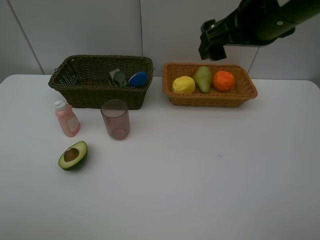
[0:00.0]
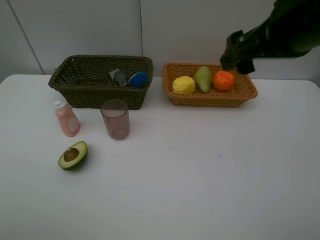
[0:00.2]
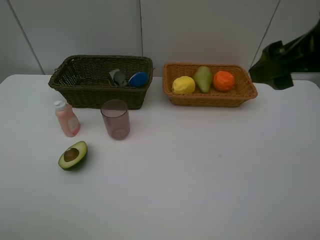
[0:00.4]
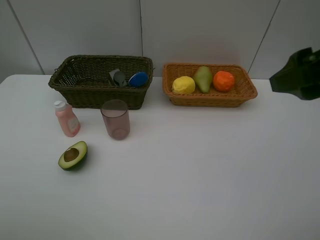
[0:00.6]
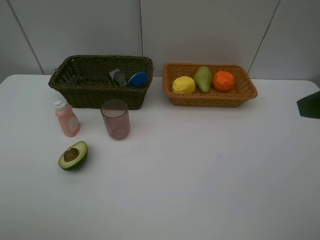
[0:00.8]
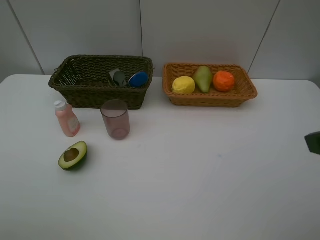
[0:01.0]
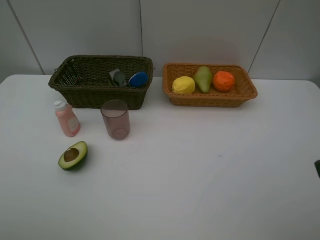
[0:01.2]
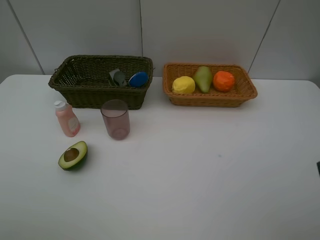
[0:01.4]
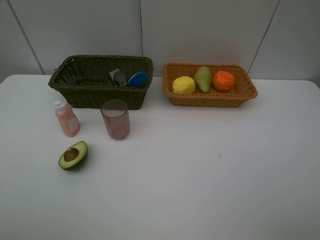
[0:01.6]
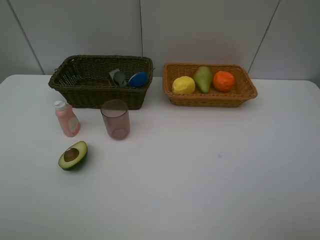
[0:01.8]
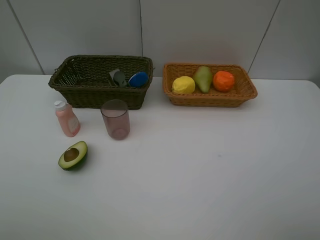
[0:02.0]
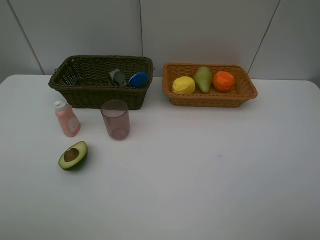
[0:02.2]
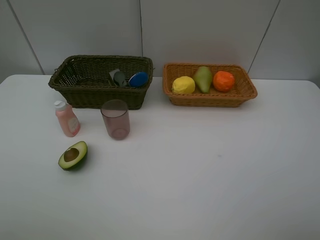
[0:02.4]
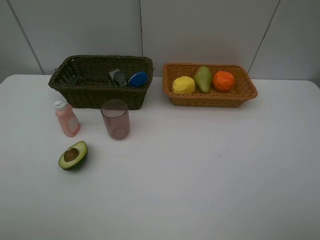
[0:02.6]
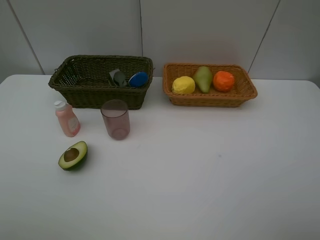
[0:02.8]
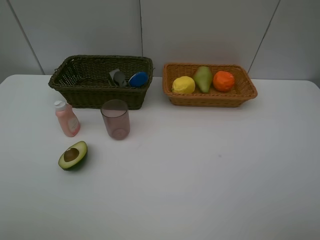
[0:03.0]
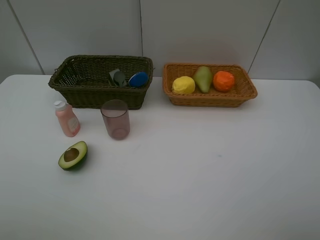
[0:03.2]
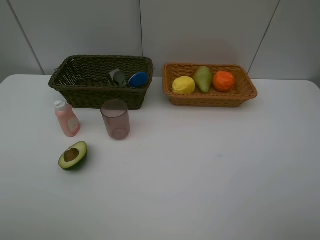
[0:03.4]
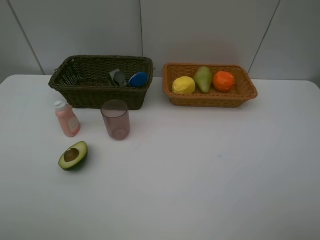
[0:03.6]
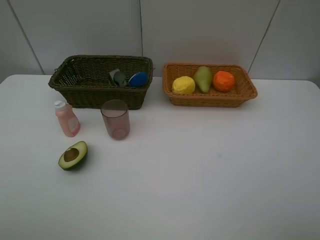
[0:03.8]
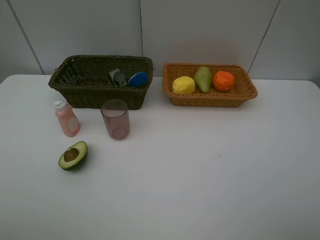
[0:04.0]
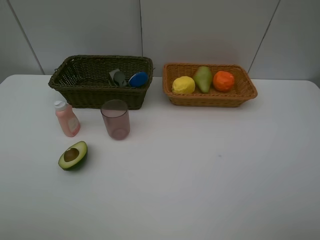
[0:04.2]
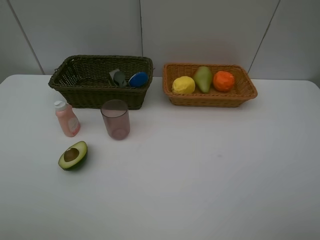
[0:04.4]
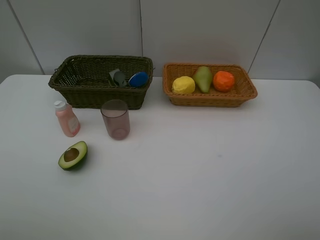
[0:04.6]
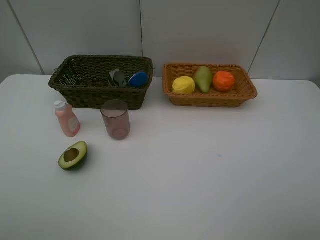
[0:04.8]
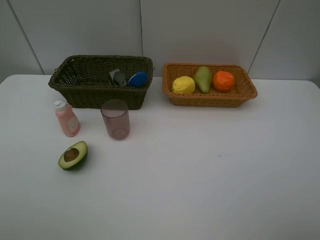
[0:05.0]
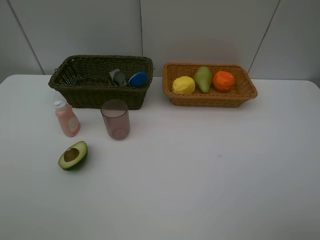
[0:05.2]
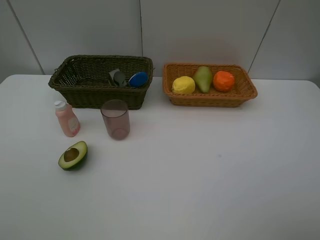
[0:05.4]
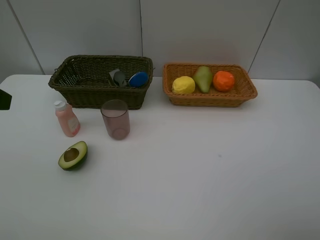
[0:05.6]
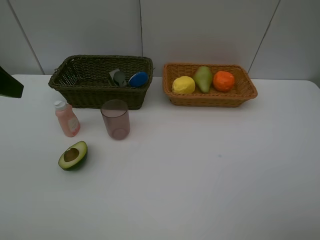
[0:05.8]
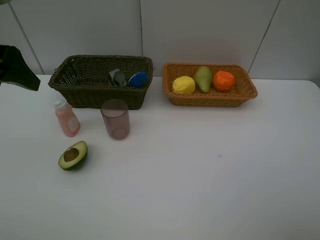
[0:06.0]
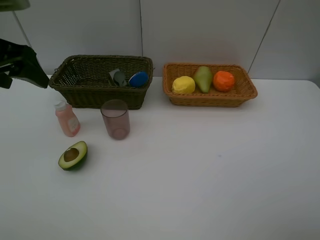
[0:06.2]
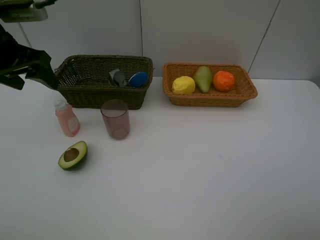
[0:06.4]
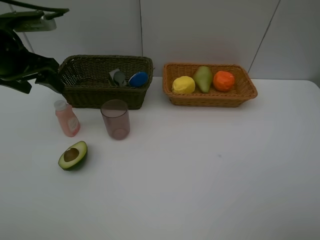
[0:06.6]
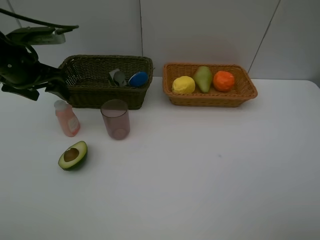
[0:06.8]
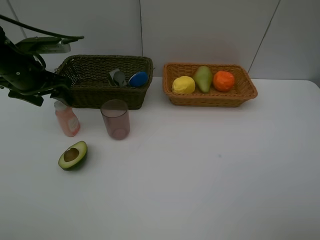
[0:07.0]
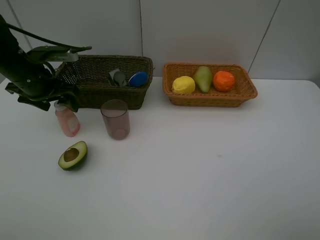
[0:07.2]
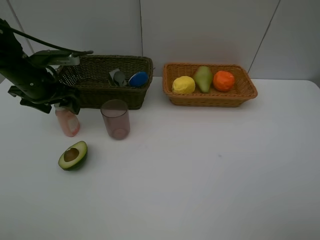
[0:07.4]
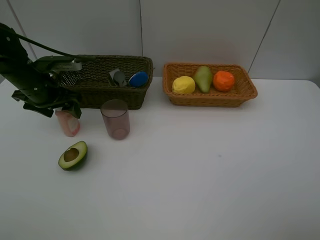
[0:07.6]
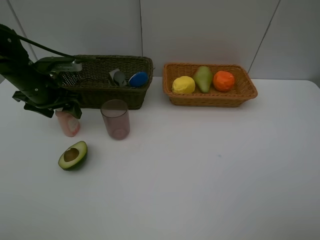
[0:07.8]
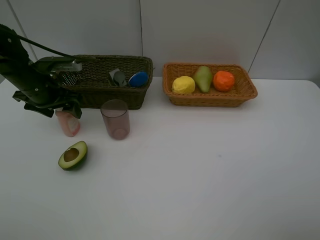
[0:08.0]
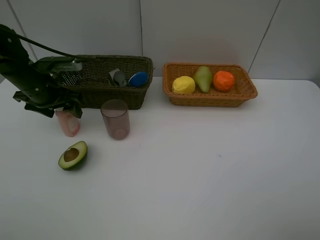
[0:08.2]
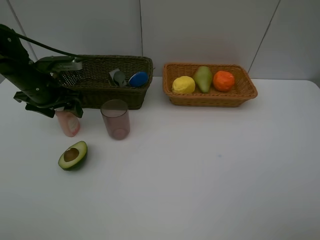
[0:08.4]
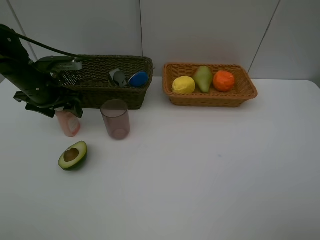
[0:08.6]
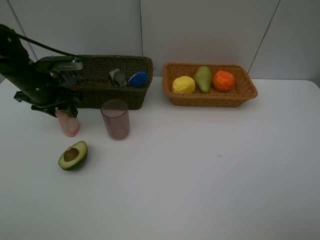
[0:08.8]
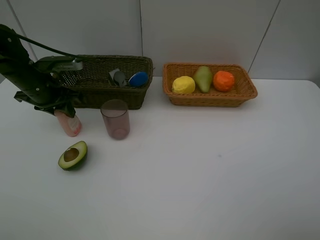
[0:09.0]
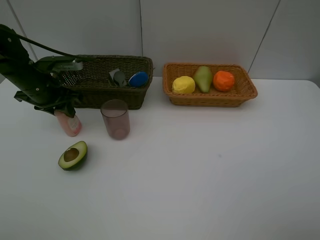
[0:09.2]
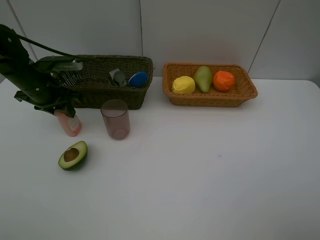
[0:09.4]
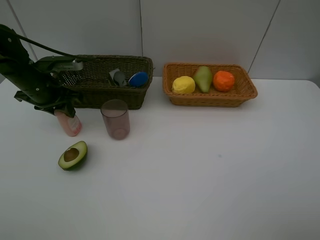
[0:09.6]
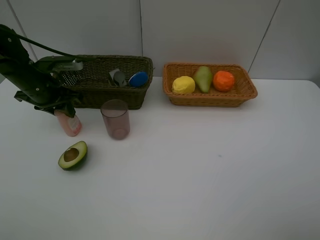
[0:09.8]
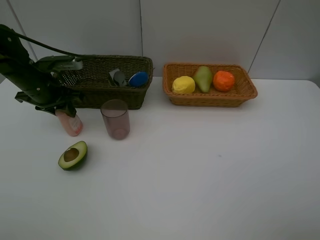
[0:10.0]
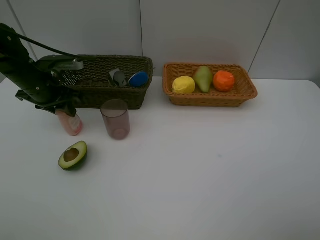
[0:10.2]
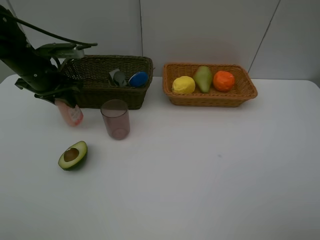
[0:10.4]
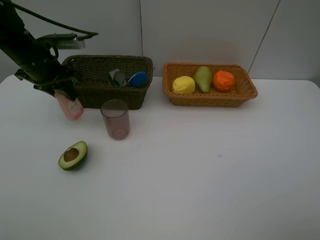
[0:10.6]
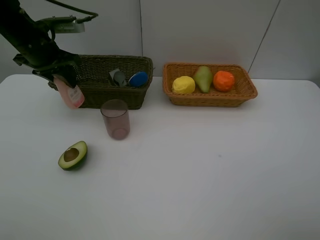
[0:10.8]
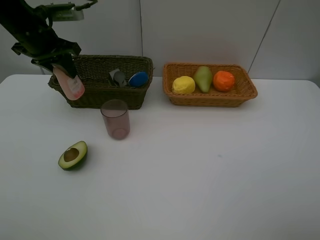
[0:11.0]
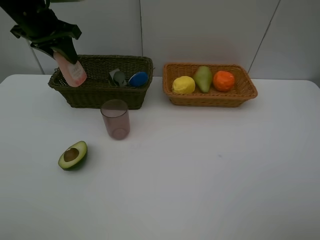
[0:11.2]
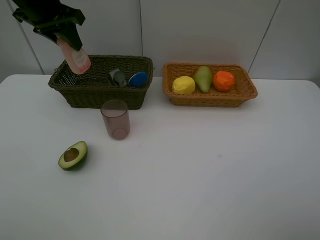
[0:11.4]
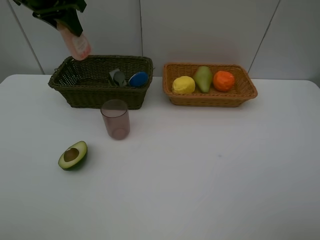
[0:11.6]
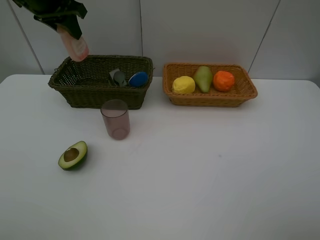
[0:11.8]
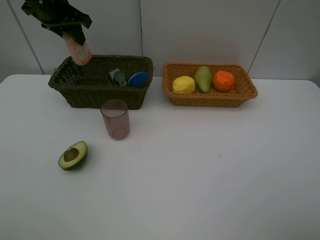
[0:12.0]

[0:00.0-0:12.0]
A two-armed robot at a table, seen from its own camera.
Task of the whole recording: Place multiple objects separately in different baskets.
Step, 0:00.0 to 0:10.4: Pick up the laundry detergent with left gripper.
0:00.0 to 0:01.6: The right gripper moves backward and to the right, about 25 cm.
0:03.0 to 0:04.4: Both grippers stay about where they are.
0:04.4 to 0:06.0: The left gripper heads forward, covering roughly 25 cm.
0:06.0 to 0:07.6: The left gripper goes about 20 cm downward and forward.
0:07.6 to 0:09.0: The left gripper closes.
0:09.0 to 0:10.4: The grippers make only small movements.
0:10.4 to 0:12.0: The left gripper shifts some 15 cm upward and forward.

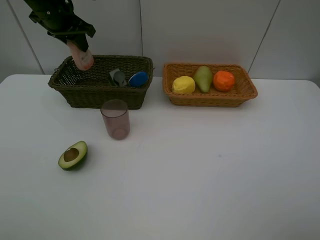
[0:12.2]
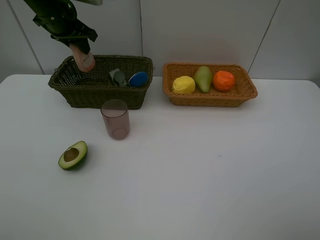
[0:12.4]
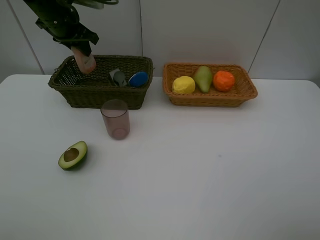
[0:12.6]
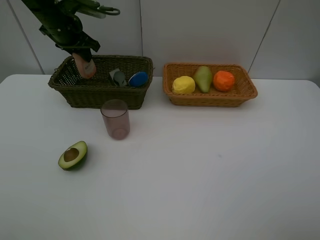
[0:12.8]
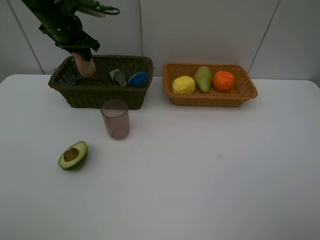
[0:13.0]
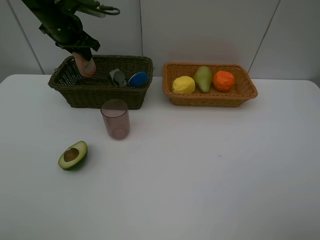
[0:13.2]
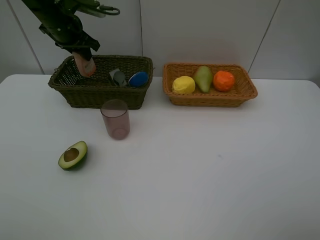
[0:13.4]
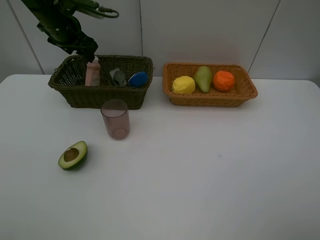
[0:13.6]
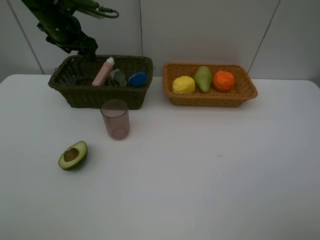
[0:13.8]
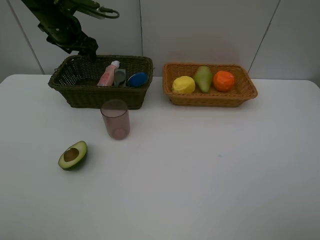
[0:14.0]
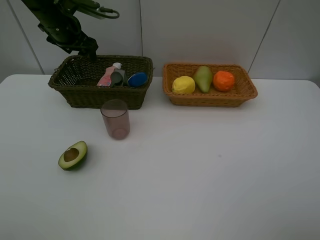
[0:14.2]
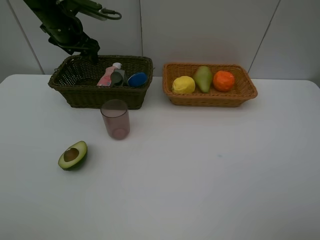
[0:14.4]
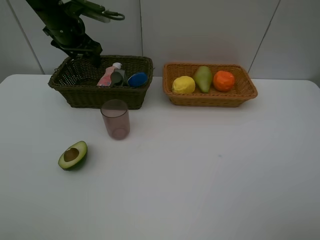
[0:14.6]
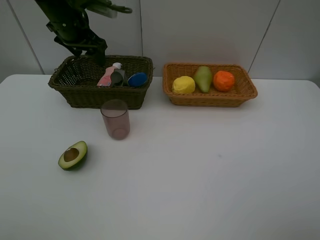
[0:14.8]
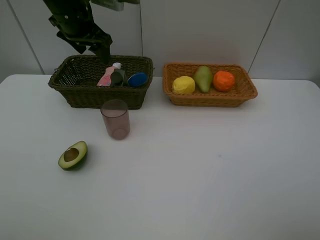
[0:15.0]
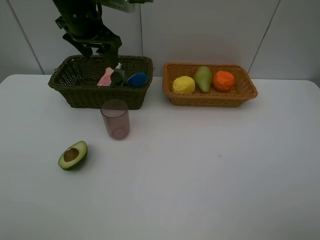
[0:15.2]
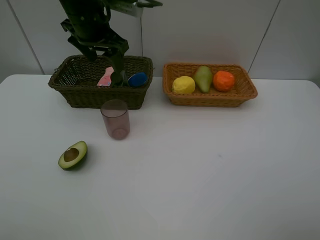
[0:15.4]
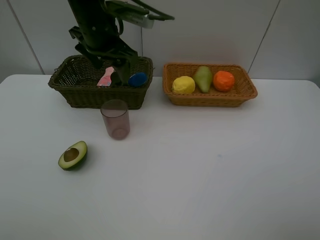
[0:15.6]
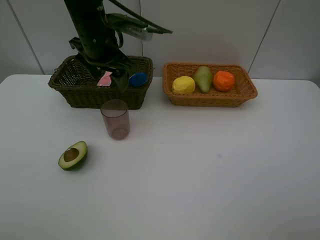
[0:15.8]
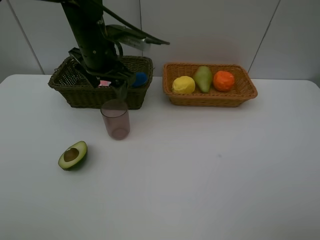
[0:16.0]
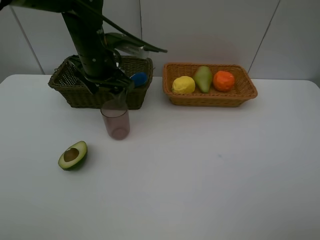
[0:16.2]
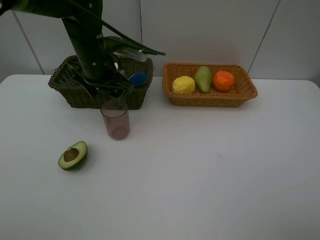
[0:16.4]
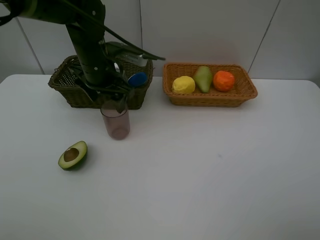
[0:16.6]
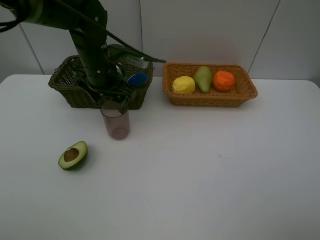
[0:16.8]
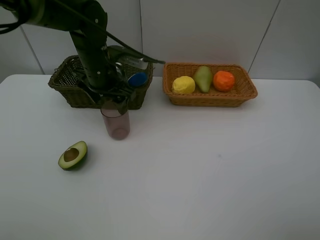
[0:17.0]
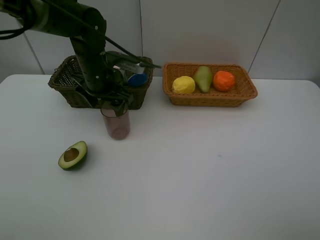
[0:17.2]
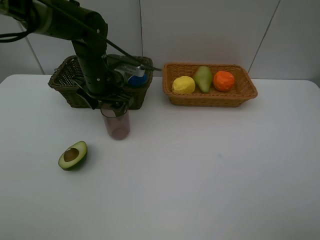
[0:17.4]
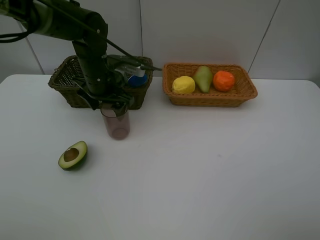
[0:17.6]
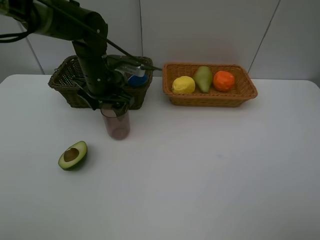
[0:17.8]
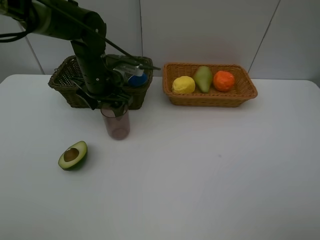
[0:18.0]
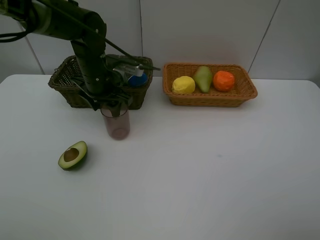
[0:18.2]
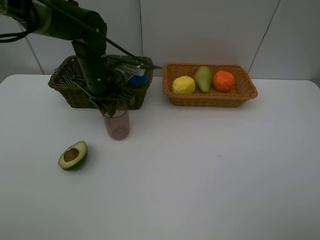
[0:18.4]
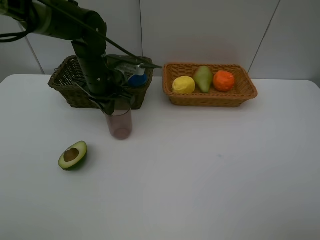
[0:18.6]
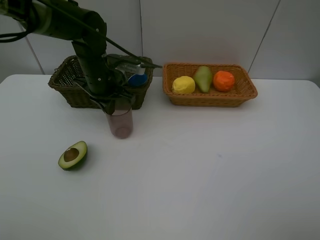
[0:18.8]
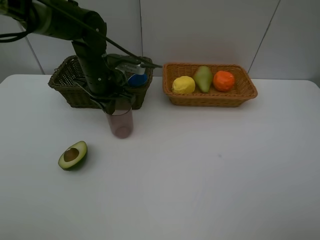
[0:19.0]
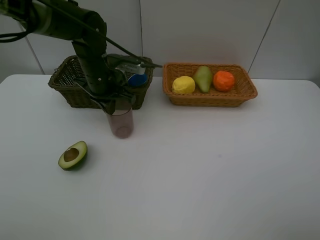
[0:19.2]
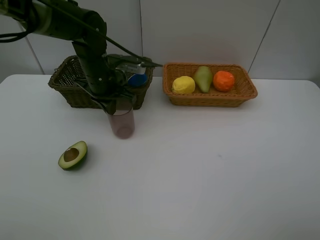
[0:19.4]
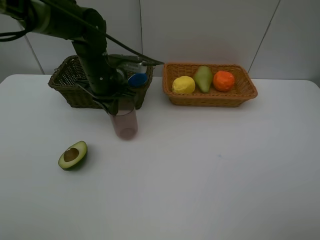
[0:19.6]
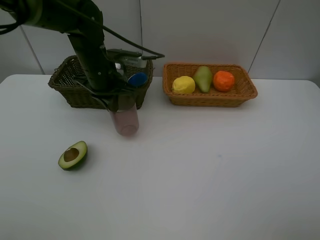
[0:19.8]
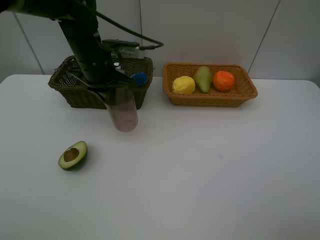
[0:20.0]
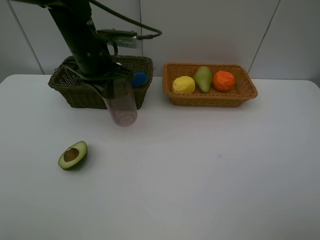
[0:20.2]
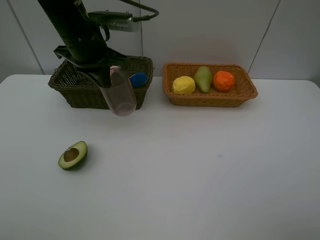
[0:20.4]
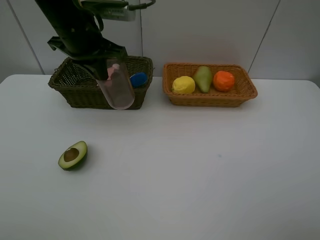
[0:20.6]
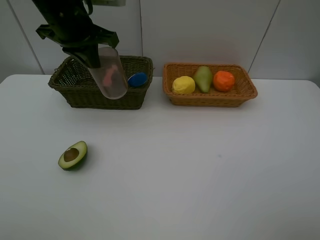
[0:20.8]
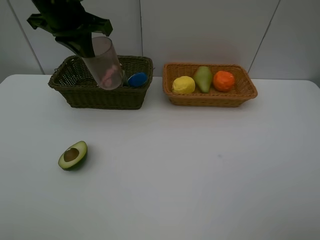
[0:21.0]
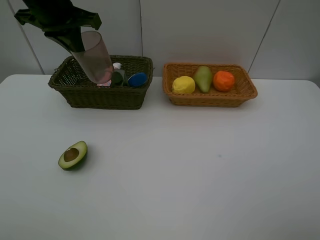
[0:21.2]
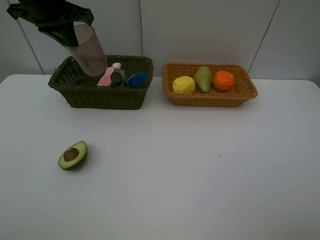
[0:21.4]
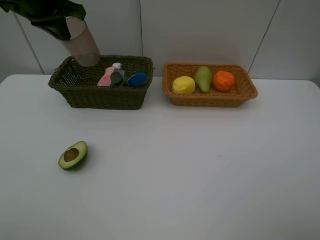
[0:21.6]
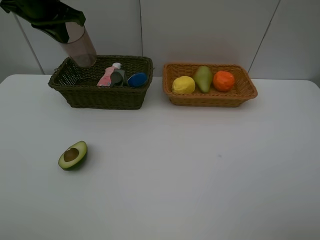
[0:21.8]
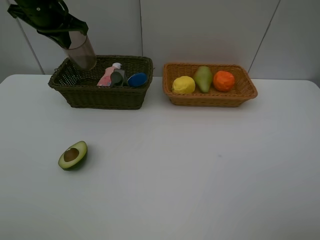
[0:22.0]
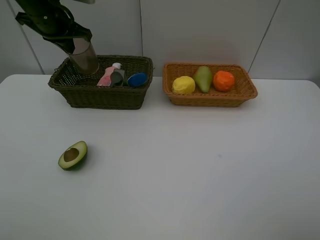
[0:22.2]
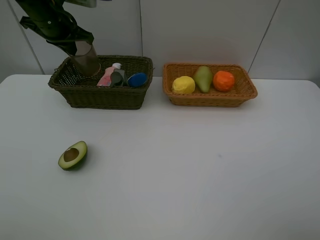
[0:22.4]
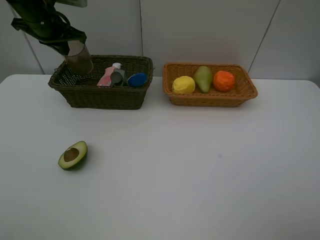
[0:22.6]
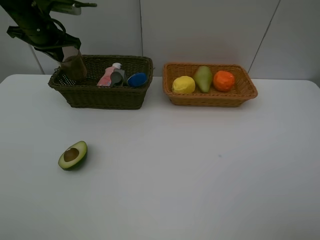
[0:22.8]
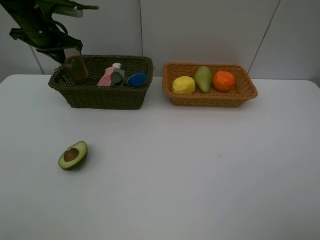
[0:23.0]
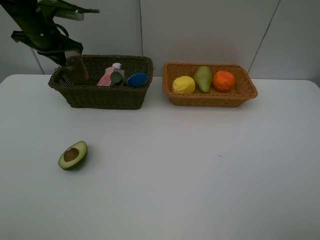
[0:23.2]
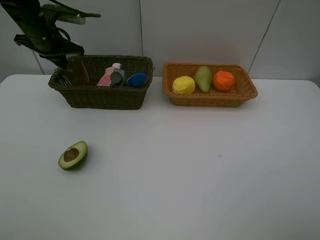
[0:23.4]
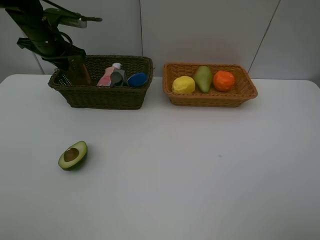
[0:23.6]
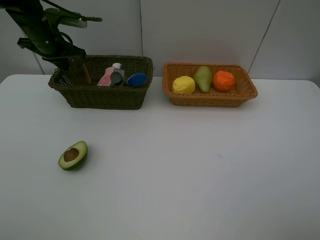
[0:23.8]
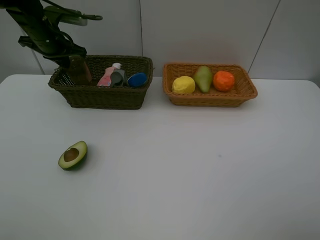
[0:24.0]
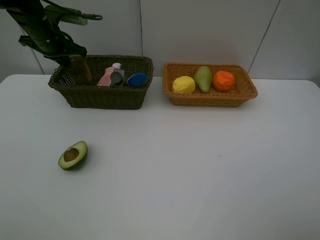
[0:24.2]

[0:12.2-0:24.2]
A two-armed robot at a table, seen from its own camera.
Task of the whole recording: Place multiple objects separately in different baskets.
Step, 0:14.0 to 0:19.8: Pick up the red cup with left gripper.
0:12.2 to 0:13.8: The left gripper opens up.
0:13.8 to 0:15.2: The left gripper is displaced to the right and backward by about 10 cm.
0:15.2 to 0:16.6: The left gripper travels downward by approximately 10 cm.
0:16.6 to 0:18.2: There are only small adjustments of the grippers.
0:18.2 to 0:19.8: The left gripper closes up.
0:19.8 to 0:21.2: The left gripper heads upward and to the left, covering about 15 cm.
0:21.2 to 0:22.6: The left gripper moves forward, downward and to the left, roughly 10 cm.
0:22.6 to 0:24.2: The grippers stay close to where they were, moving slightly.
